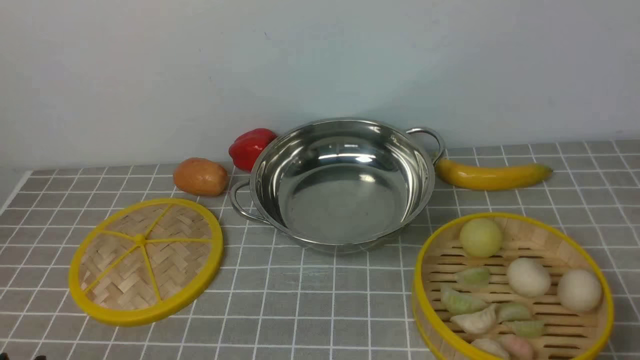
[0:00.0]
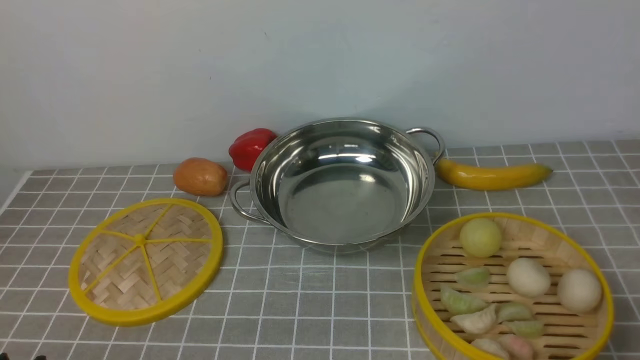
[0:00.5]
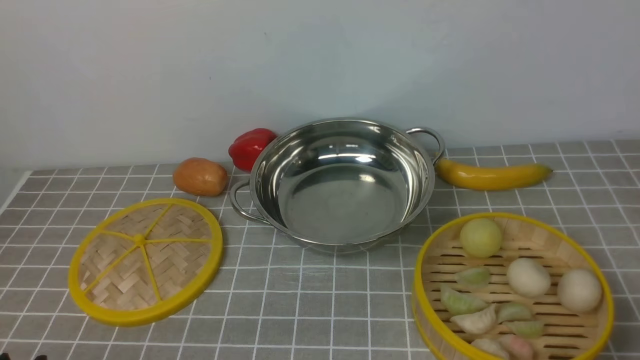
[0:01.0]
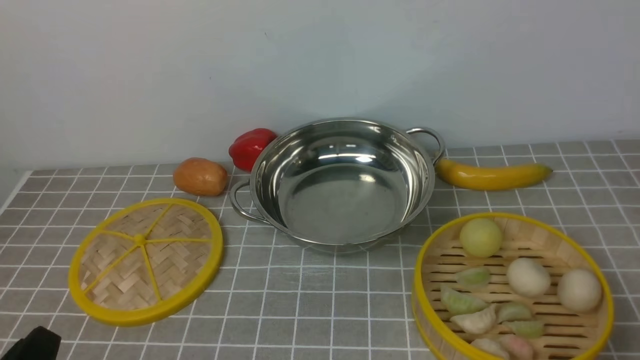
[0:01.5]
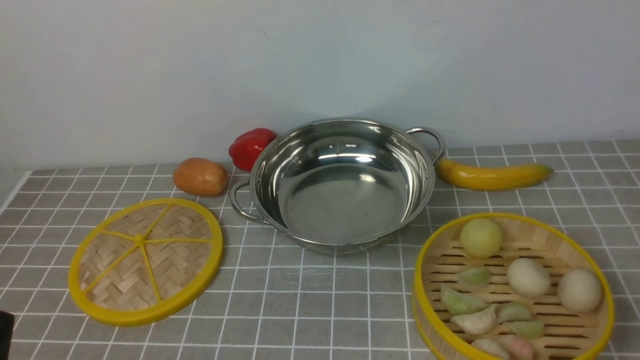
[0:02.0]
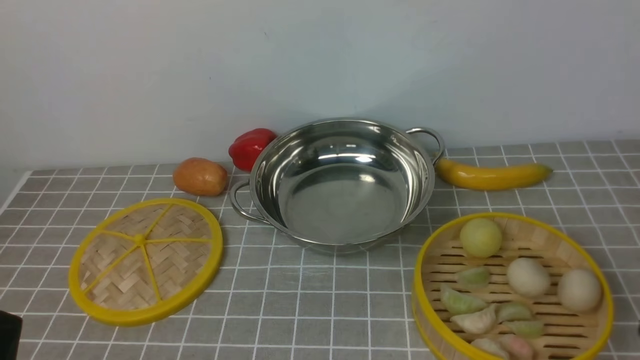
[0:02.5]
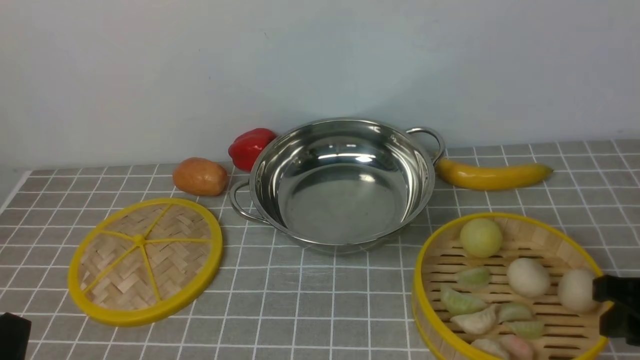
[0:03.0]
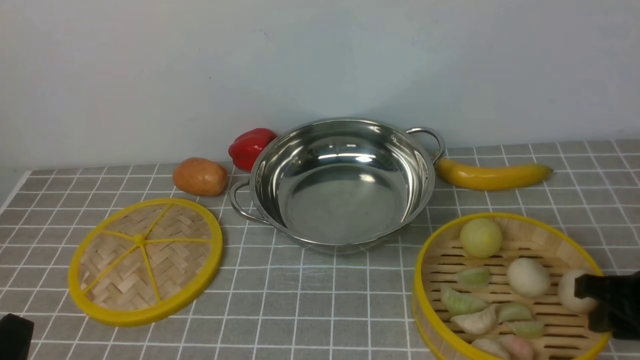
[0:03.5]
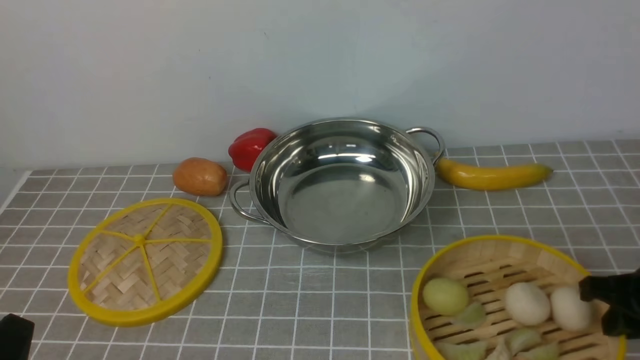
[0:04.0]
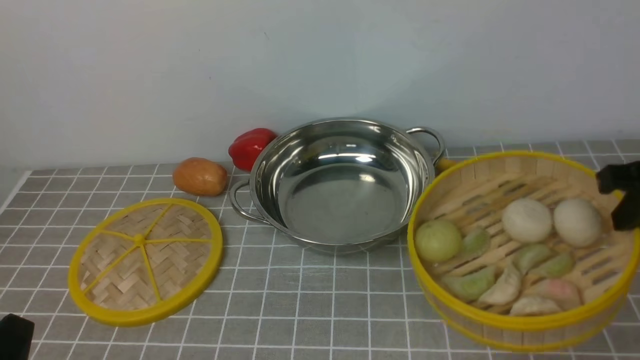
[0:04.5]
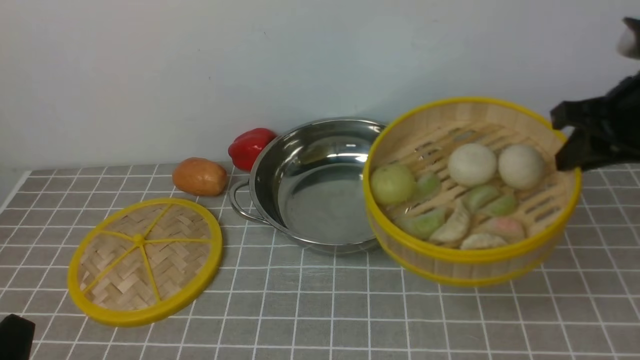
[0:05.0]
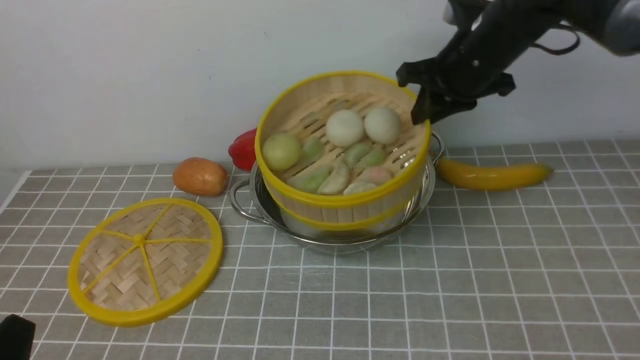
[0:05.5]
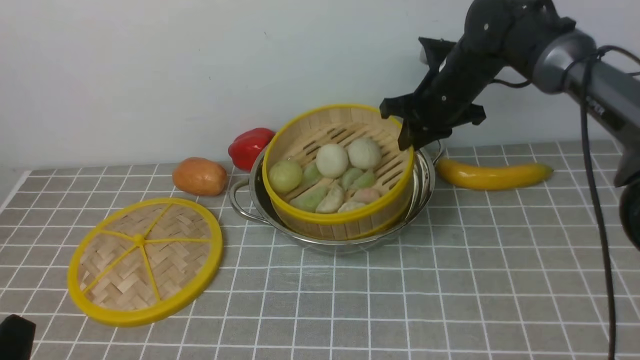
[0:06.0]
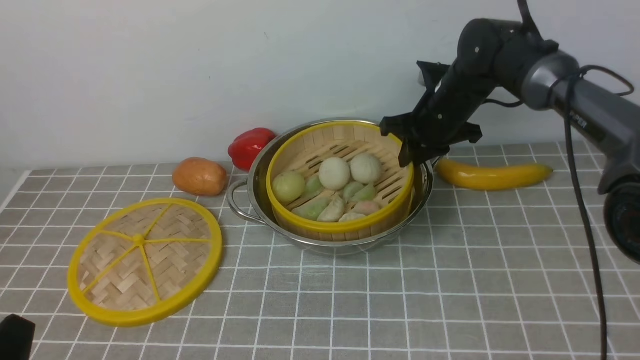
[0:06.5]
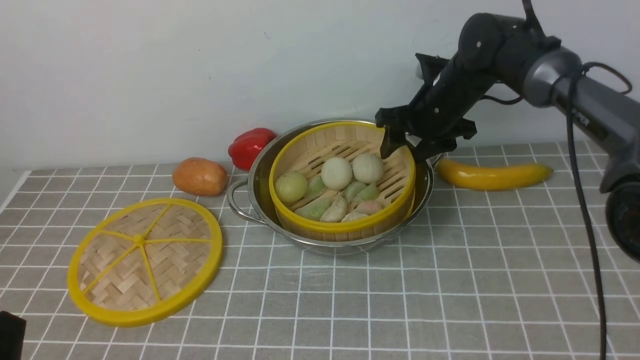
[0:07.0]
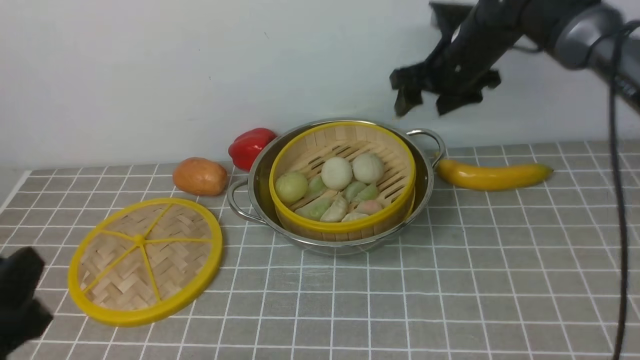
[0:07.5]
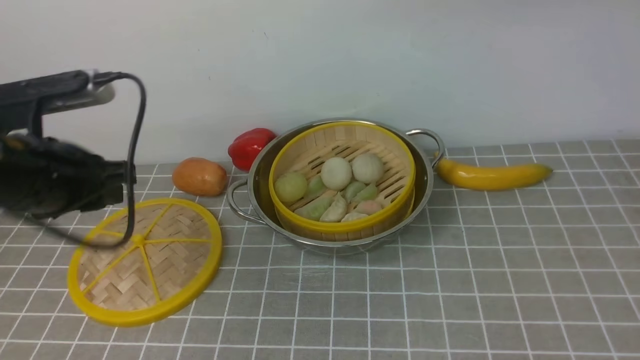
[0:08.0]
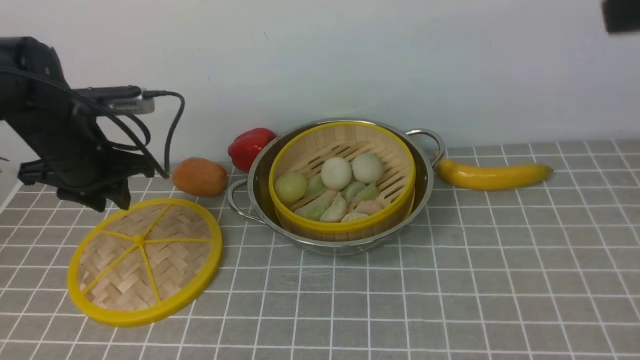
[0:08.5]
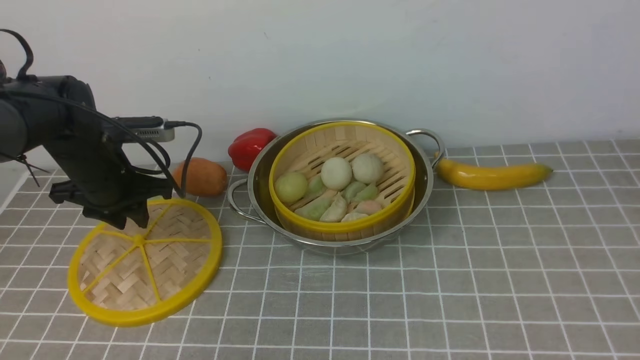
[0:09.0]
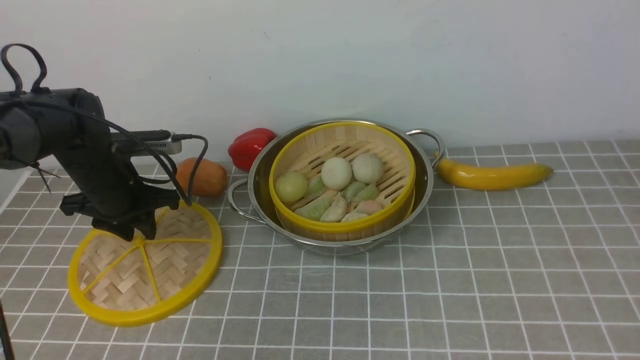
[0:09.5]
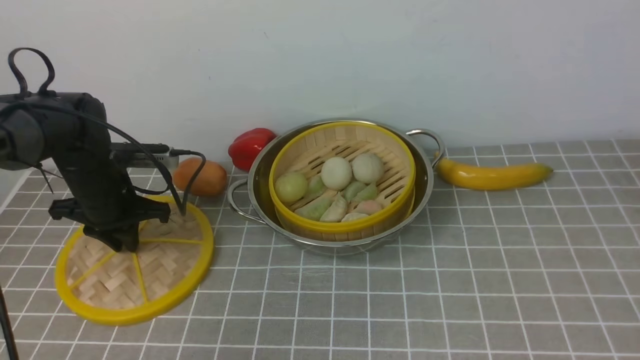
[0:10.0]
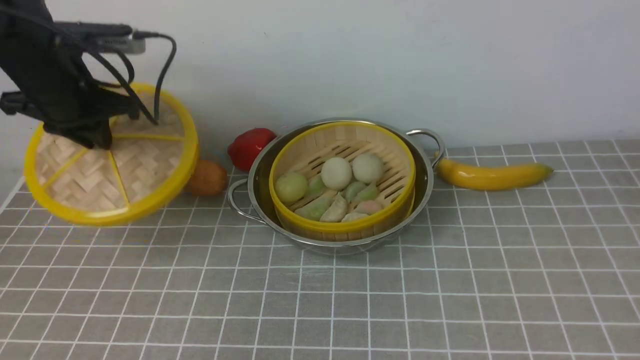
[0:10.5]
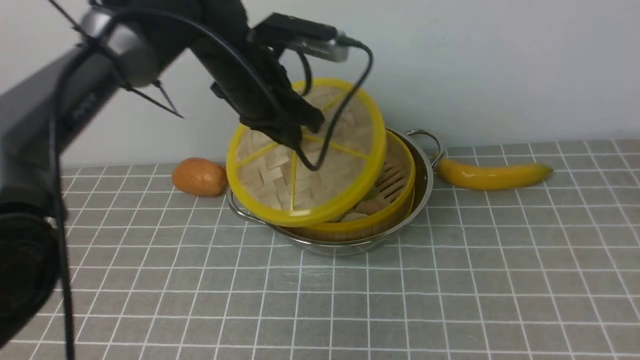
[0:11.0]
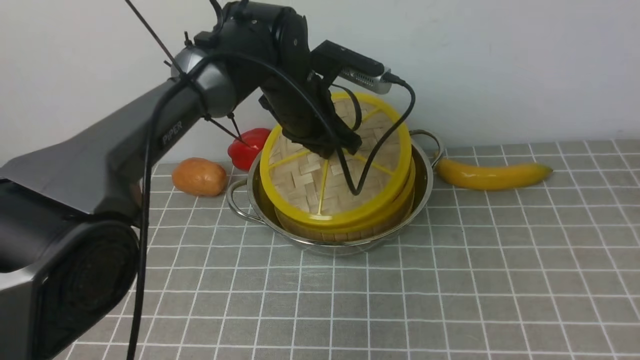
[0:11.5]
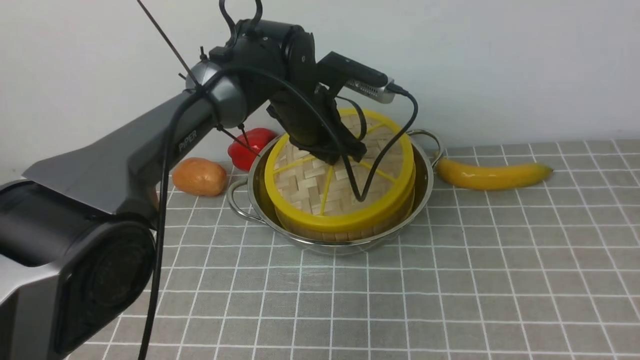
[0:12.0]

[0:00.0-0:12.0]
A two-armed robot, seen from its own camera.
Task of the whole recording: place the steamer in the pot on the grey tablecloth, and put the lid on the steamer.
Step, 0:00.0 to 0:04.0: use the right arm to lift the steamer closest to it.
Step, 0:04.5 to 0:07.0: use the right arm to put the steamer into the iron steamer pot in the middle.
Step, 0:07.5 to 0:10.0: use the left arm to lift the lid of the steamer.
0:02.0 to 0:04.0: The right gripper travels forward by some 20 cm.
0:04.0 to 0:06.0: The right gripper moves forward and to the left, roughly 30 cm.
0:06.0 to 0:08.0: The right gripper moves upward and backward, roughly 30 cm, and opens its fingers. Meanwhile the left gripper goes some 25 cm forward.
0:08.0 to 0:10.0: The left gripper heads forward and downward, covering roughly 15 cm, and closes up.
0:10.0 to 0:12.0: The left gripper travels to the right by about 25 cm.

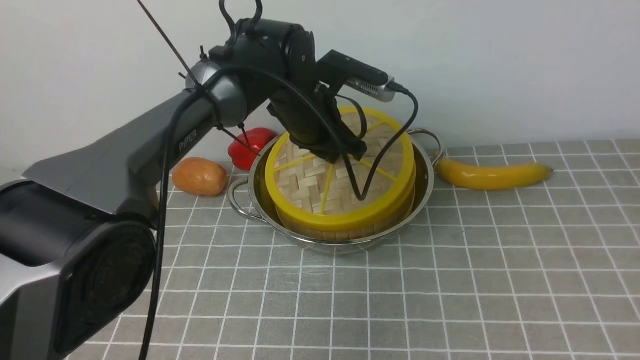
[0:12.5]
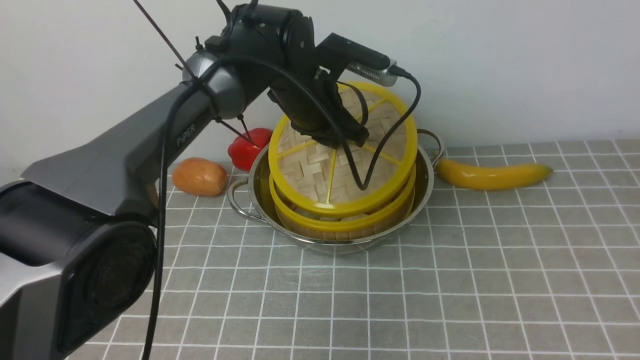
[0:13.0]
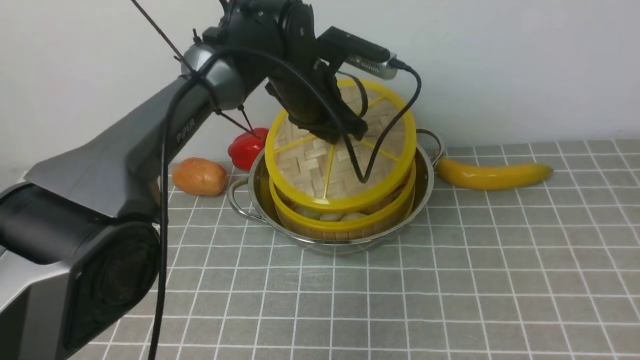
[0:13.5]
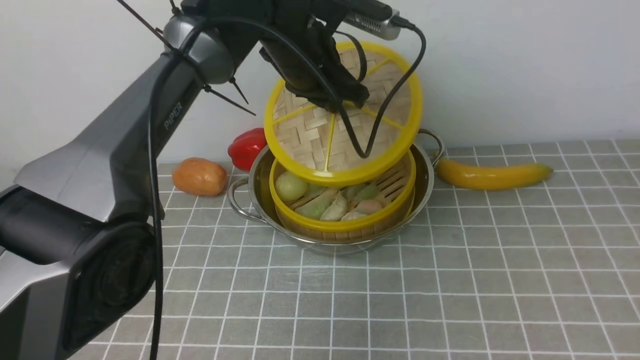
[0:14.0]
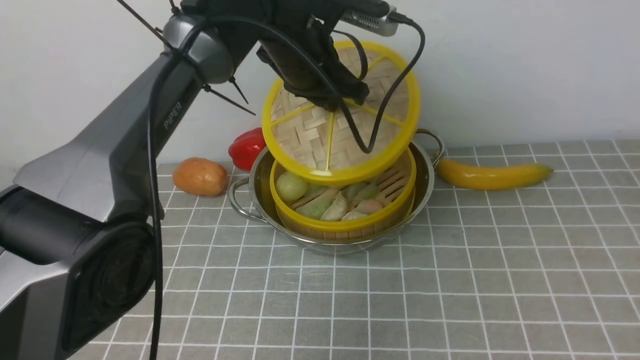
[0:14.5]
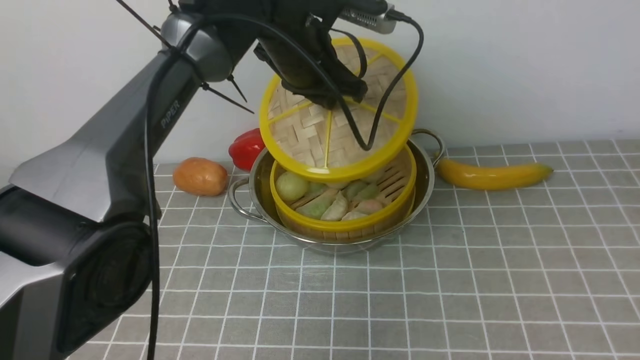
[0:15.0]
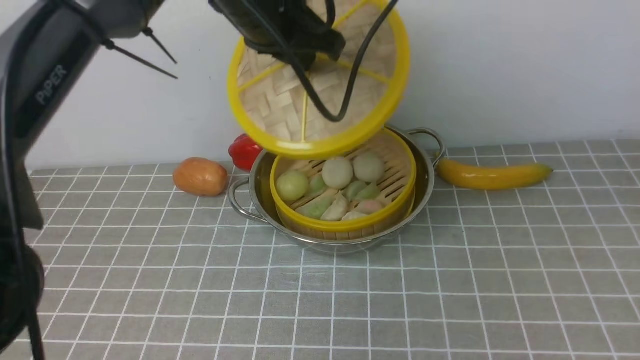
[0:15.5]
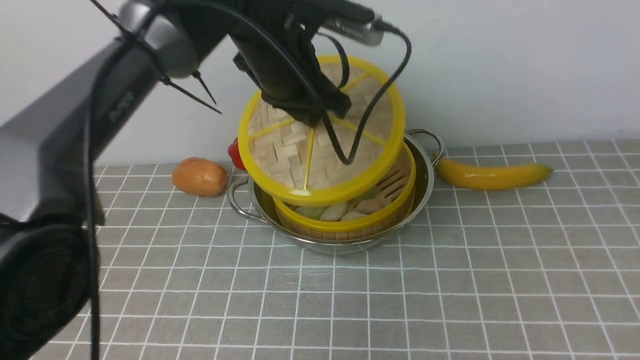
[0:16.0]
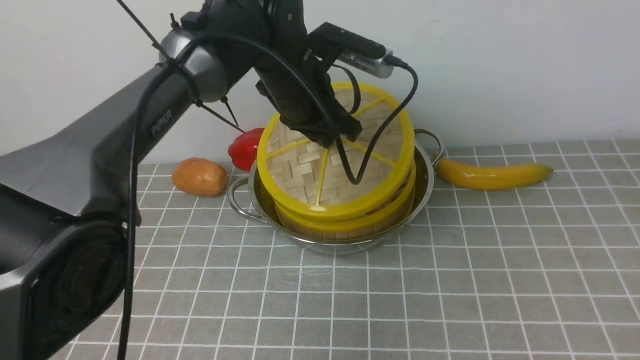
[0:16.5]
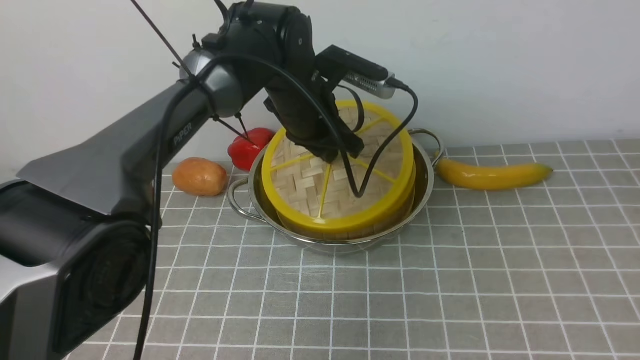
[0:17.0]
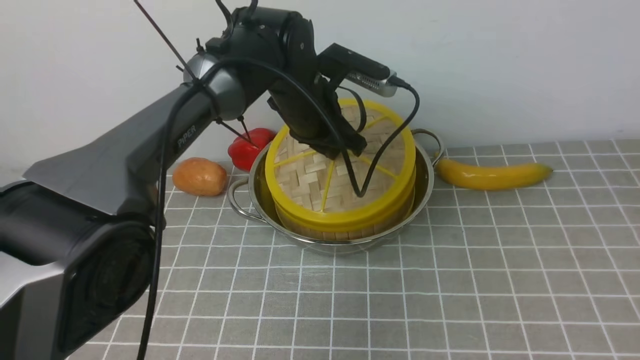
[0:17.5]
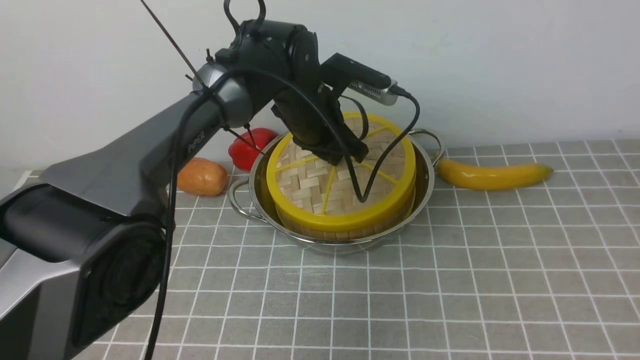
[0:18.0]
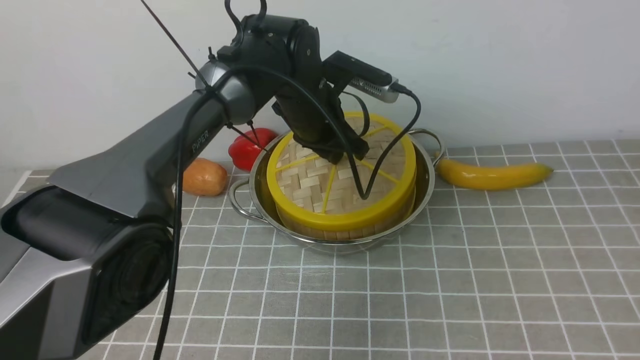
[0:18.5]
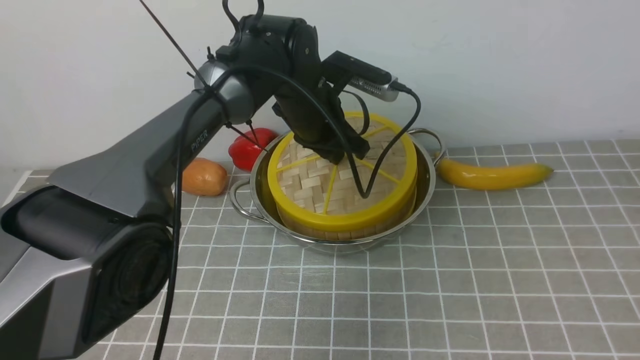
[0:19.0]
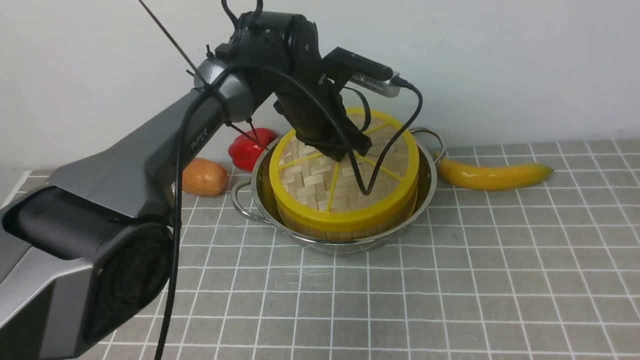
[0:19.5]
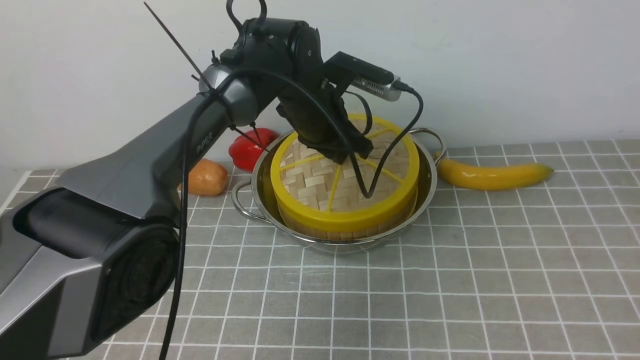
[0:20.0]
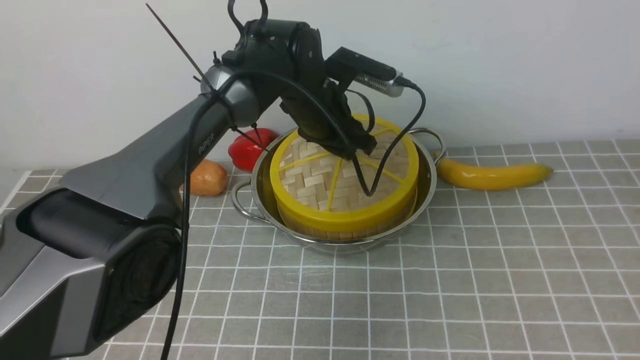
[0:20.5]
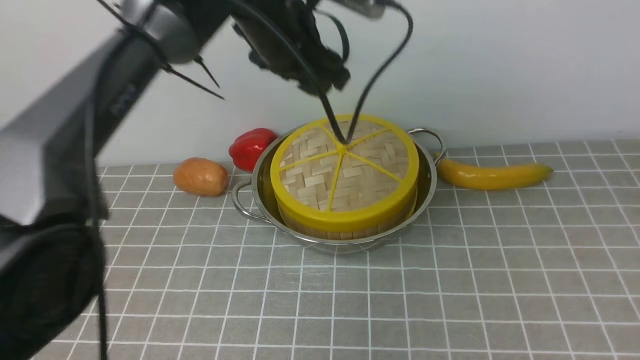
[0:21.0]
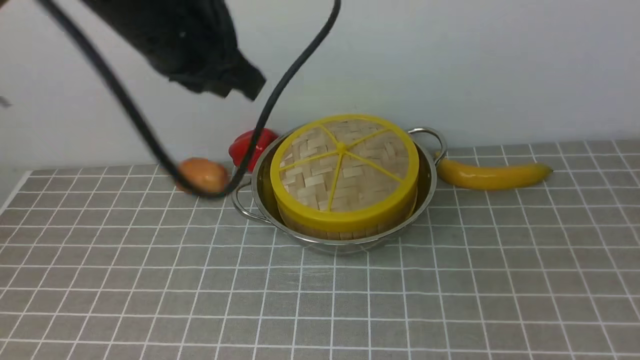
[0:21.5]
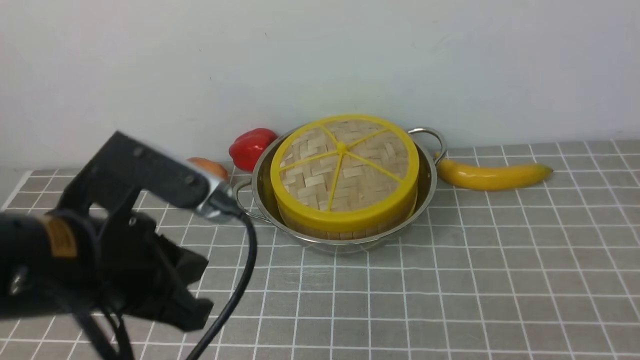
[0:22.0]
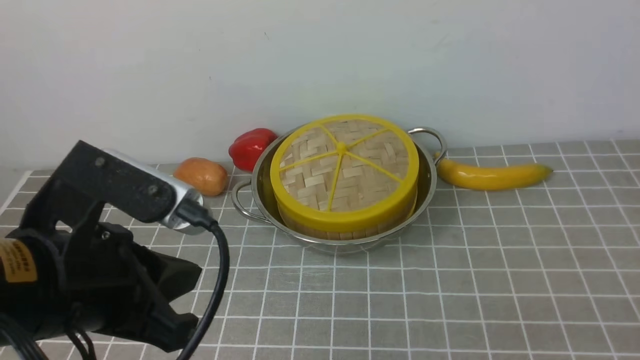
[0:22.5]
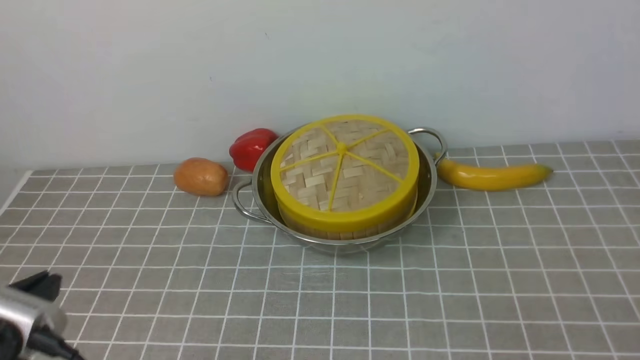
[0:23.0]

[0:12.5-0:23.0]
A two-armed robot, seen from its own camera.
Task of the whole recording: place the steamer in the pot on the grey tablecloth, and put the lid on the steamer.
Step, 0:12.5 to 0:20.5: use the left arm to place the steamer lid on the steamer.
0:12.5 to 0:14.5: The left gripper travels upward by approximately 5 cm.
0:14.5 to 0:16.5: The left gripper moves some 5 cm upward and comes back.
0:19.0 to 0:21.0: The left gripper is displaced upward by some 10 cm, and opens up.
0:21.0 to 0:23.0: The right gripper moves downward, approximately 15 cm, and closes up, while the left gripper goes approximately 40 cm backward and to the left, and closes its fingers.
